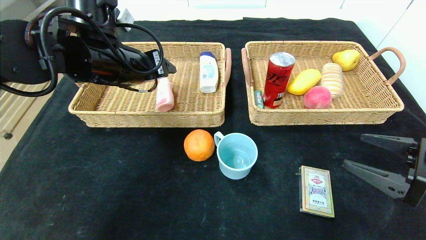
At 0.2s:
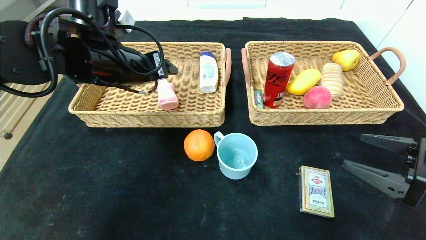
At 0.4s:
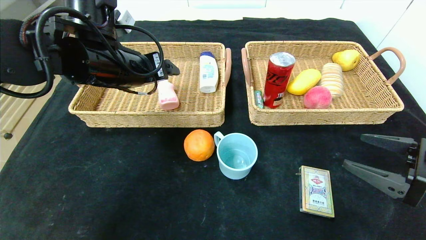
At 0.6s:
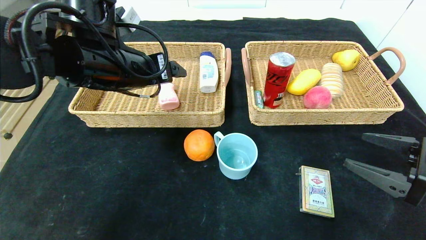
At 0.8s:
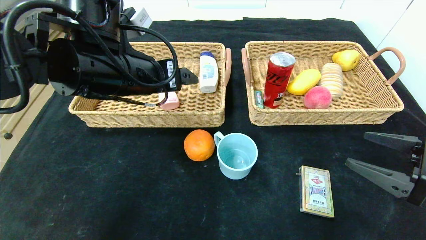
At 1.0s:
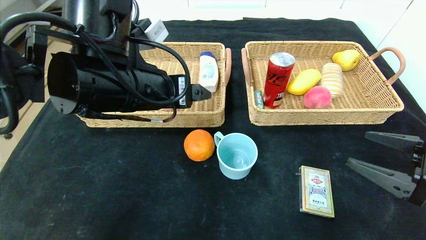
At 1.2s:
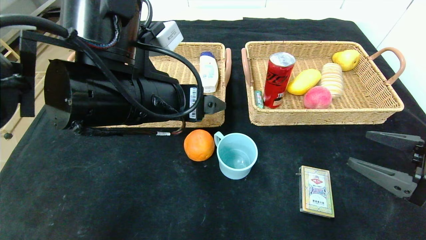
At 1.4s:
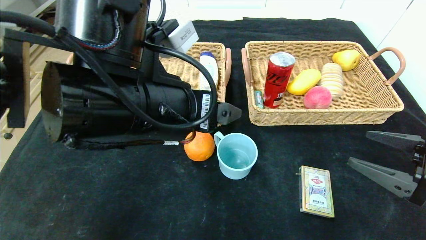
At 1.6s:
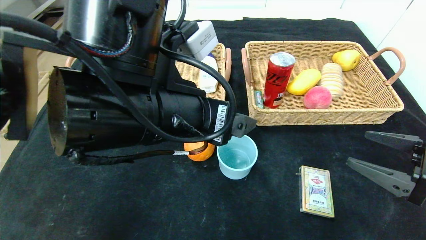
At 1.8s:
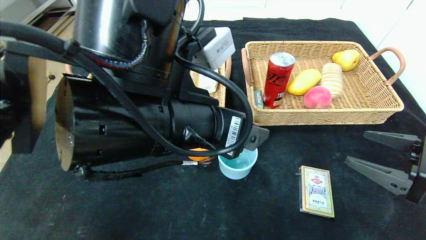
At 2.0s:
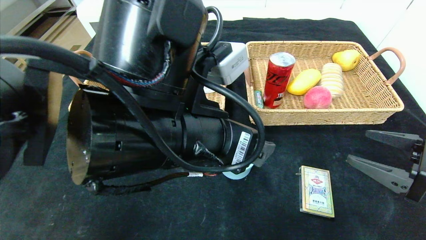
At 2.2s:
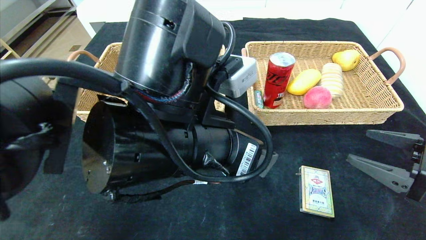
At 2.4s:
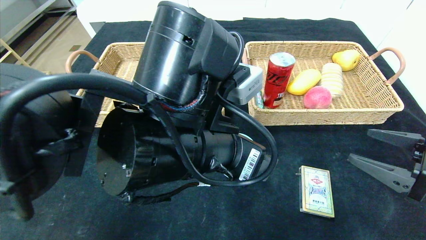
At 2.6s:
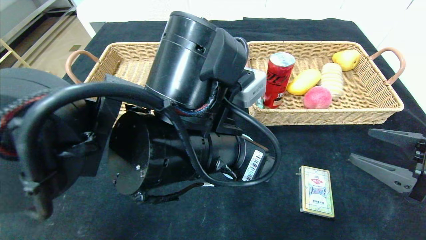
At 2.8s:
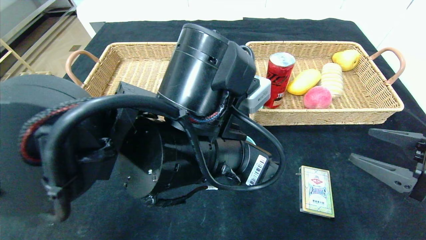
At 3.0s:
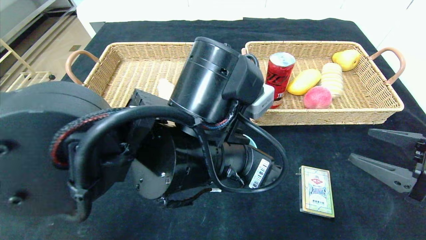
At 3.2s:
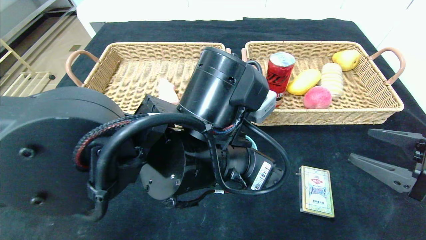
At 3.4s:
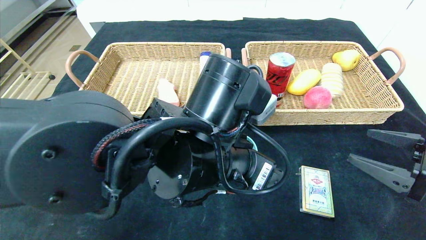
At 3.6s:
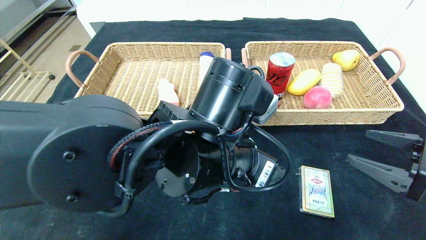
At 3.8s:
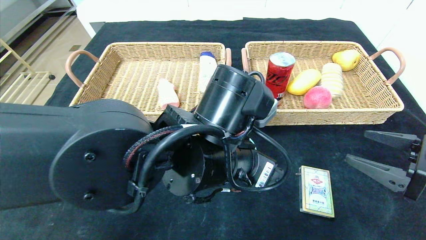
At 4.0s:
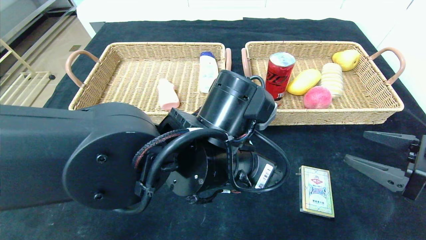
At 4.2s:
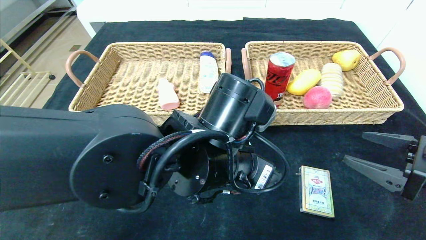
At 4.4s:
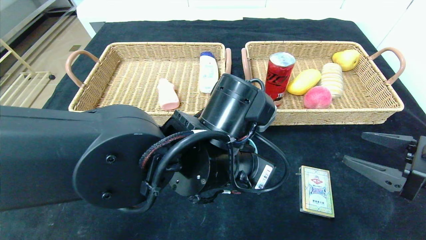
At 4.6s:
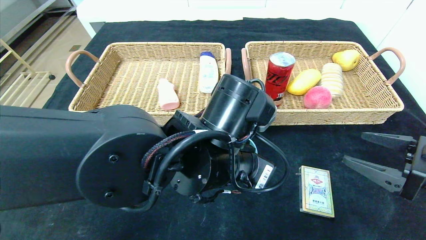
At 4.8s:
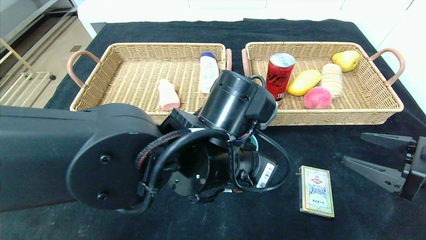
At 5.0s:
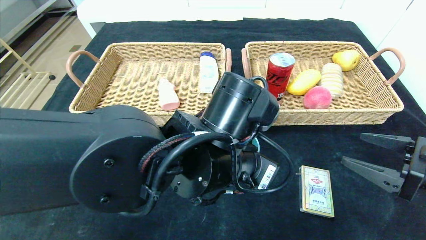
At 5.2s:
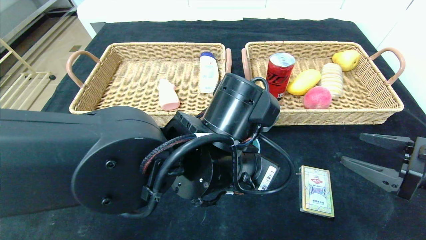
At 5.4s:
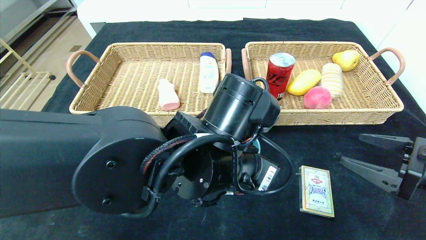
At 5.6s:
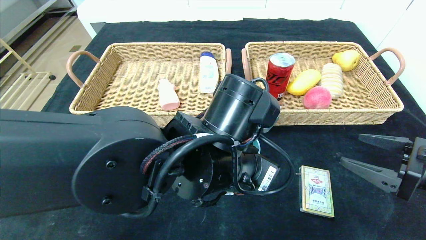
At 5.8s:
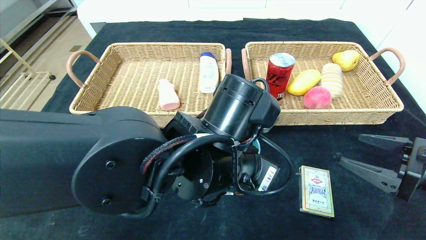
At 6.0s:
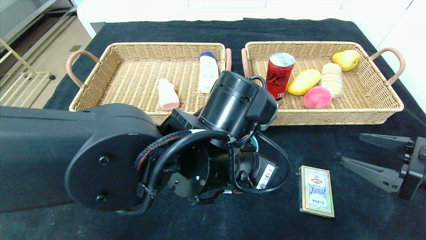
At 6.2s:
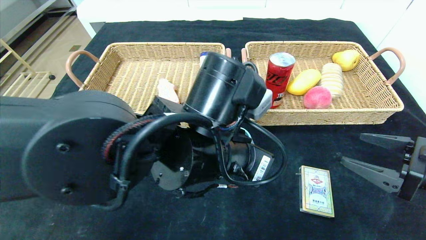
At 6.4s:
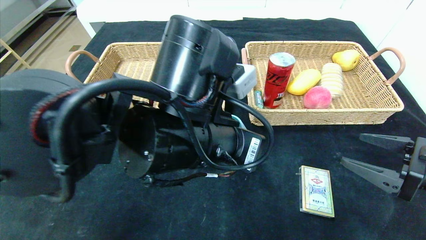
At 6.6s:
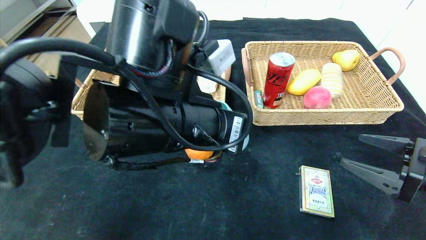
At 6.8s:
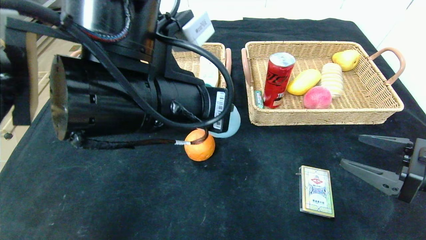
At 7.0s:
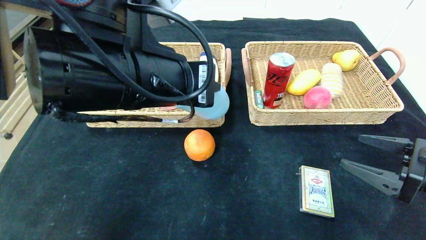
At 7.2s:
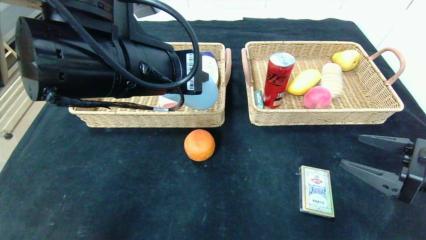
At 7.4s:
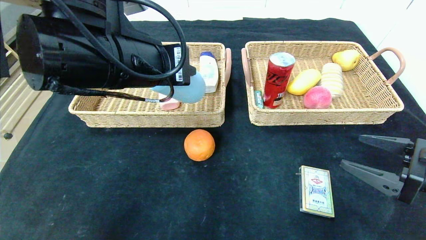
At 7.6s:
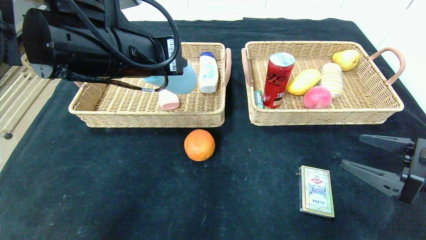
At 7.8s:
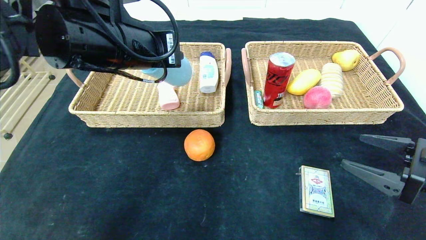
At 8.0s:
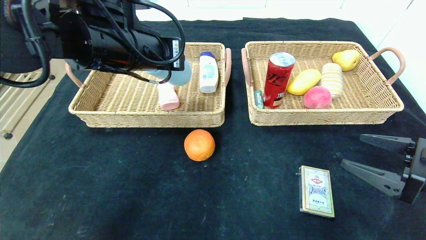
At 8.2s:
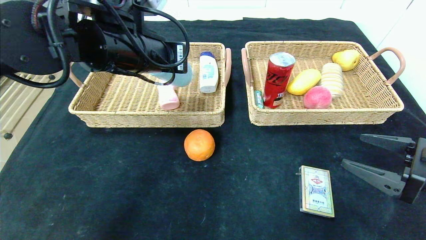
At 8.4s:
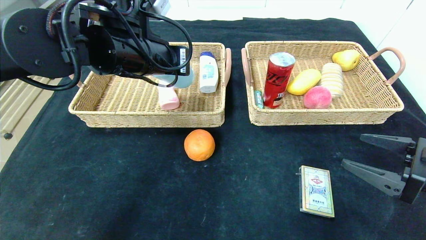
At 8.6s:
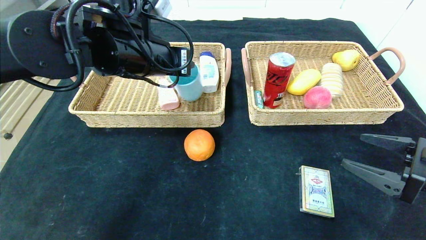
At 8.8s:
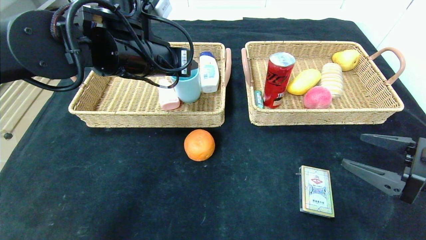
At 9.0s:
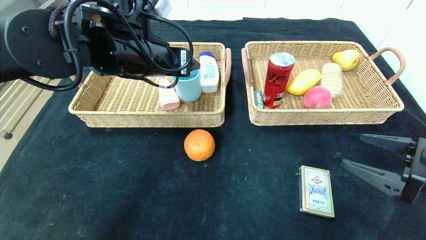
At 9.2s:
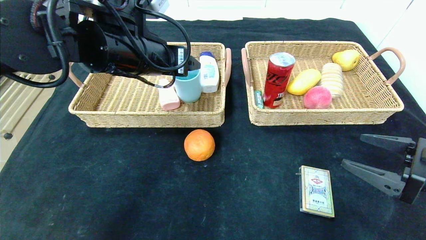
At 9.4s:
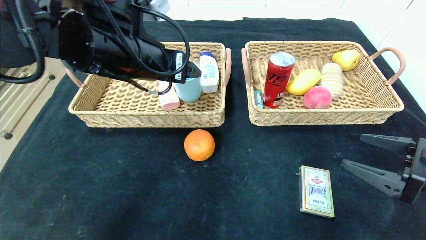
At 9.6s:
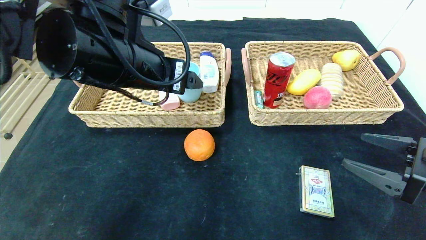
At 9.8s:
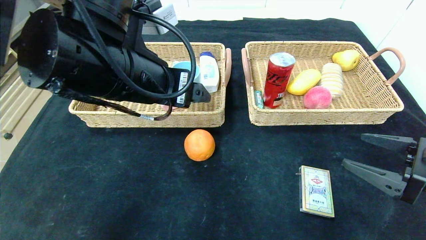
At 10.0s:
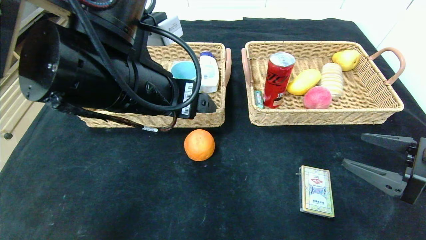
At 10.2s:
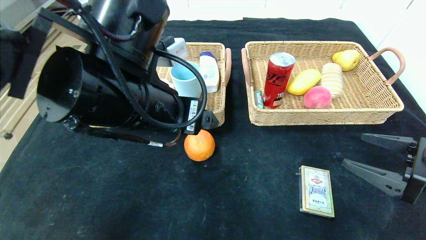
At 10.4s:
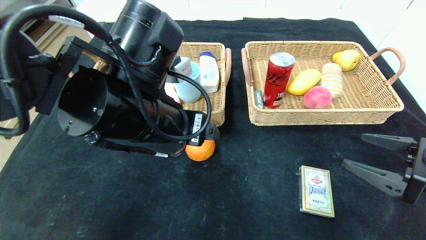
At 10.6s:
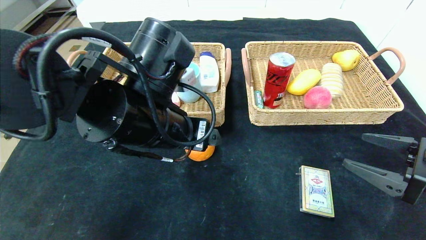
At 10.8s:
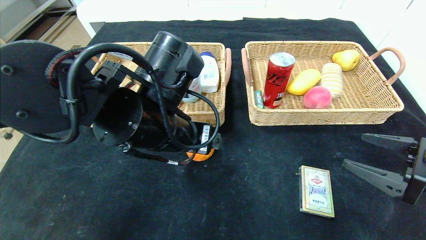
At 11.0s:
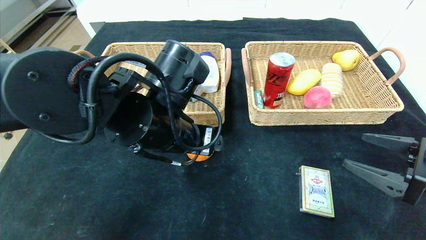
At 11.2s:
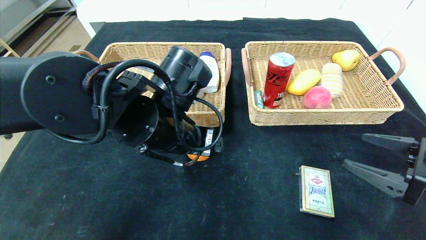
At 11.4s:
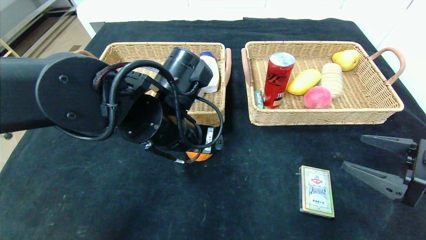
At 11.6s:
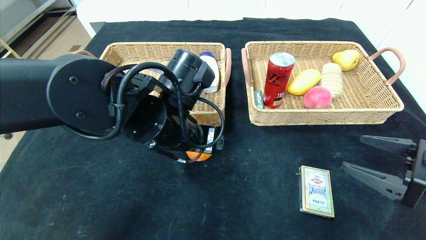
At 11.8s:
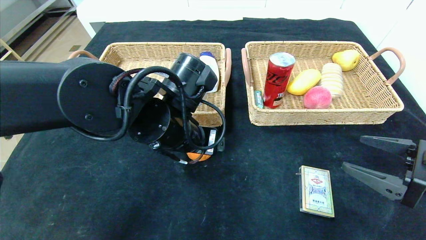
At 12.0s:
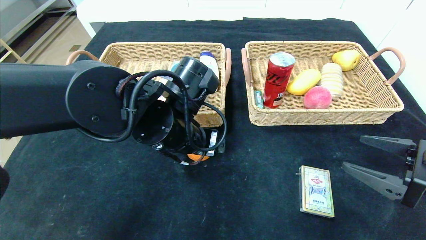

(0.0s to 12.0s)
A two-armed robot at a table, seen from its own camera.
Step, 0.6s - 9.0s: Grasp the blue cup and put it in the left basket.
0.0s - 1.6s: The left gripper goes approximately 15 cm backward and to the right.
1.6s - 3.0s: The left gripper moves to the right, roughly 5 cm.
3.0s - 4.4s: The left gripper closes its fingers.
4.4s - 6.0s: The left gripper closes its fingers.
6.0s - 7.6s: The left gripper heads to the left and upward, covering about 20 cm.
7.6s - 9.0s: The left gripper travels forward by some 5 cm, and opens up.
9.0s - 10.4s: The left gripper shifts roughly 10 cm backward.
10.4s - 12.0s: The left gripper shifts by roughly 5 cm.

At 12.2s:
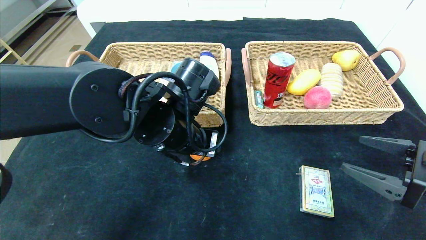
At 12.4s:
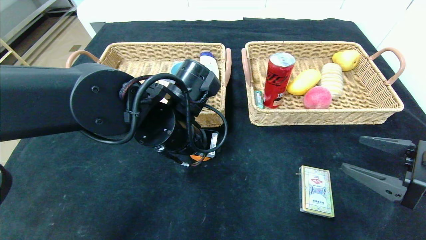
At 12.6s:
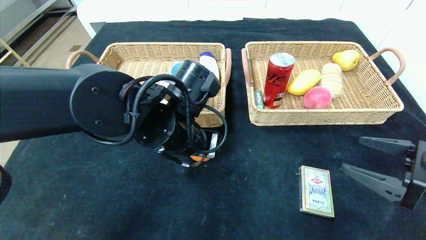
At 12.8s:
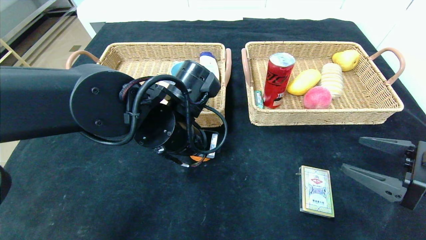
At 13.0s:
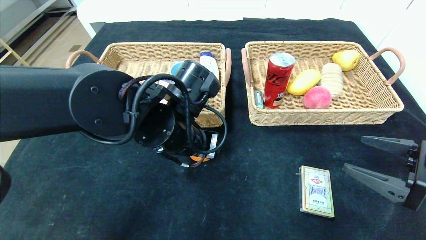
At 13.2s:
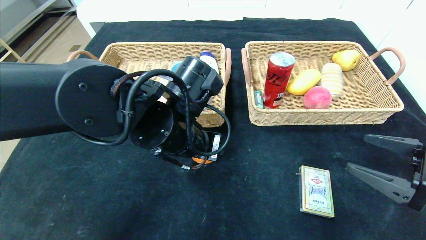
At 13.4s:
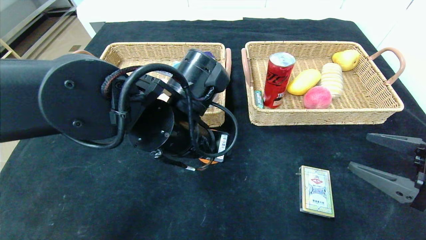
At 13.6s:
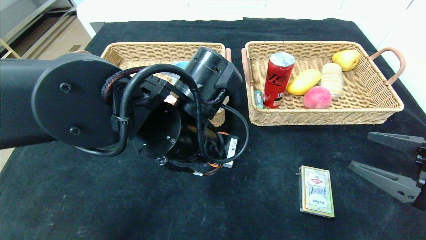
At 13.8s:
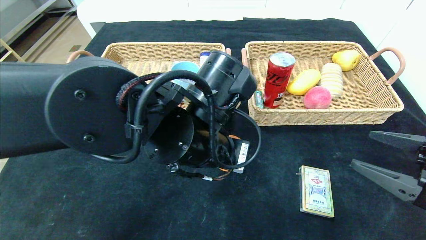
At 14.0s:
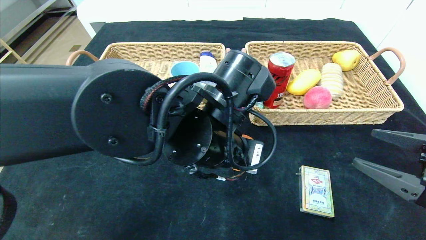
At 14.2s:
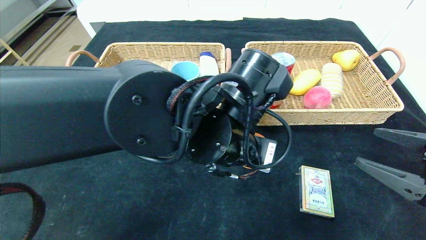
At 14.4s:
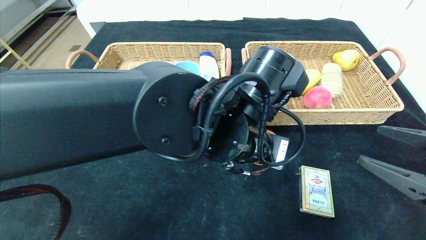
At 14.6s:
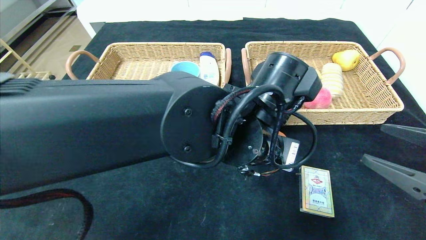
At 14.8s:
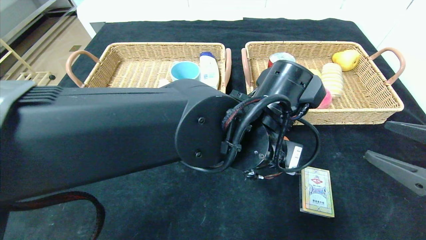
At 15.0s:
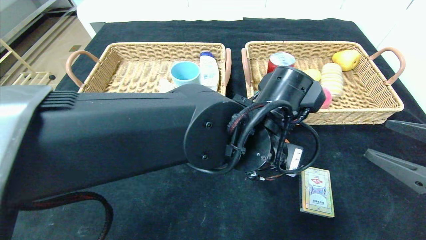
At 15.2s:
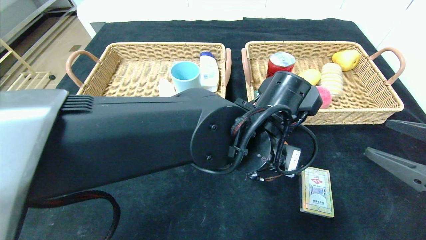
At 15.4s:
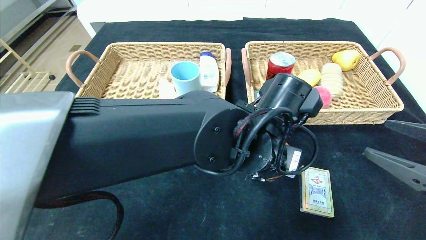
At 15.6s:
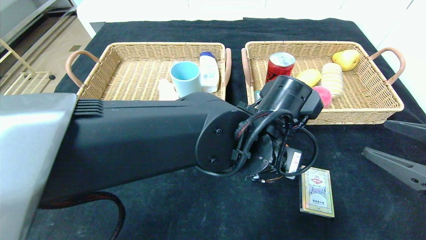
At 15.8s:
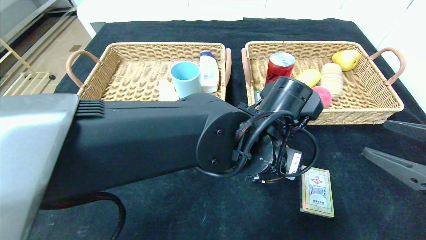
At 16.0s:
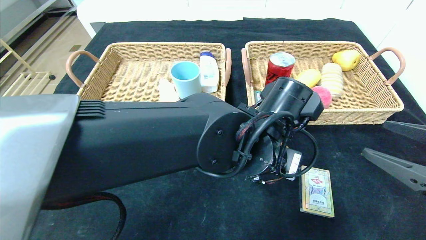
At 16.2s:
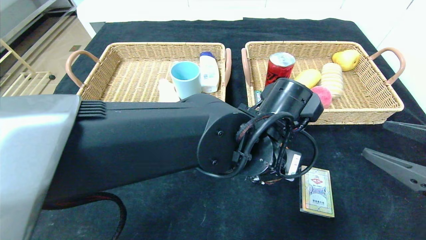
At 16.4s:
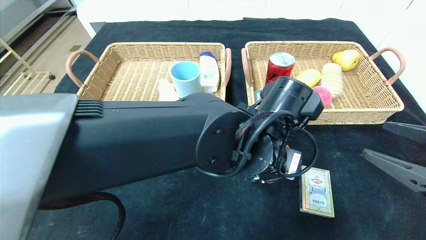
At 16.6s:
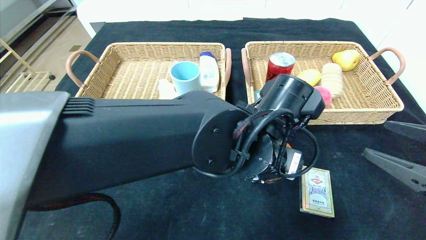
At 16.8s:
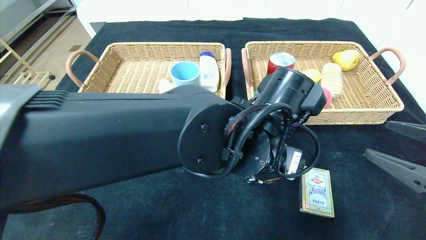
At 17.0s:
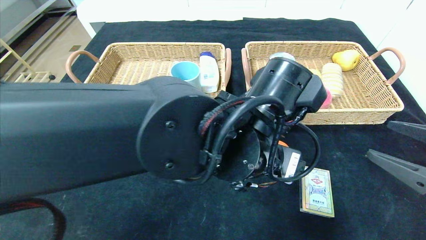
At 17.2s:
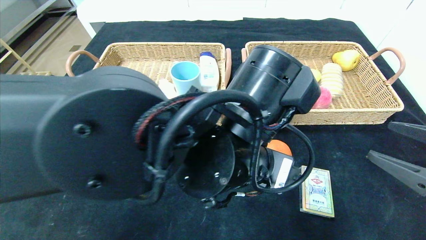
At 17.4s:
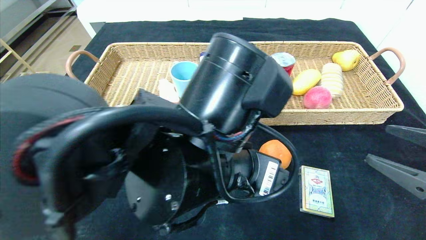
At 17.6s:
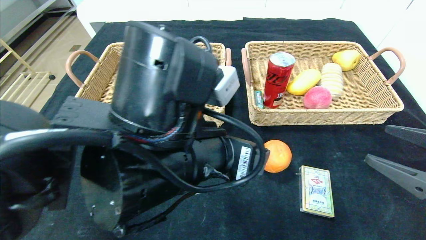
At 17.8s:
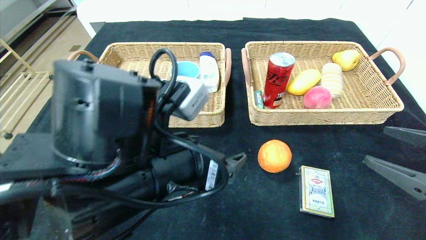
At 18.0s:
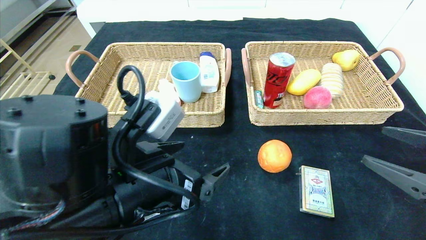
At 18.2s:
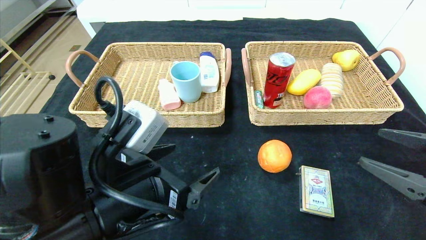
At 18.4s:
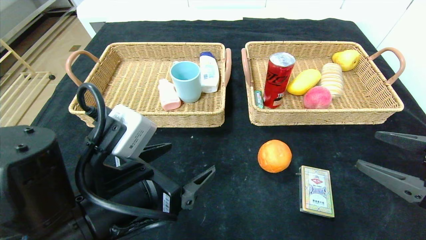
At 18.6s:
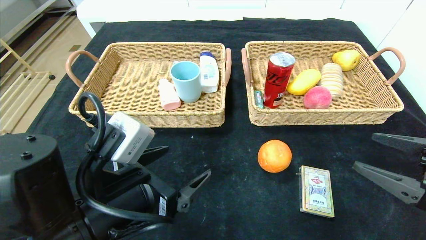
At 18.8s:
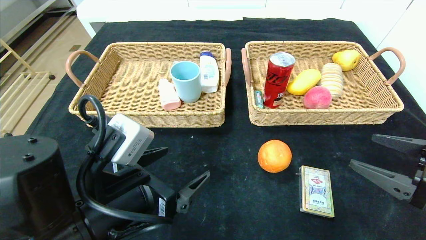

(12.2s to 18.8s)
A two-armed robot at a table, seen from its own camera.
Step, 12.2s - 17.2s: Place the orange in the center of the table.
12.2s - 13.8s: The left gripper changes place by about 5 cm.
13.8s - 15.4s: The left gripper is displaced to the right by roughly 10 cm.
15.4s - 17.2s: The left gripper travels backward by about 5 cm.
17.2s - 18.8s: The left gripper heads to the left, covering some 15 cm.
